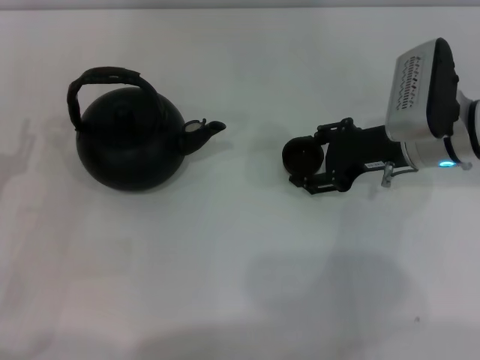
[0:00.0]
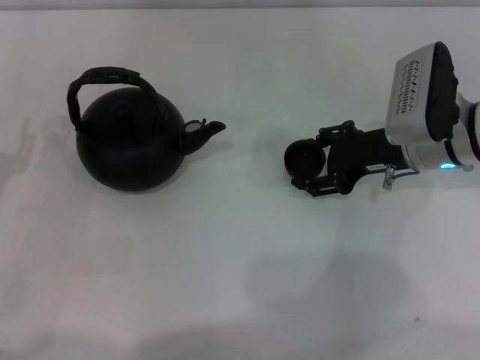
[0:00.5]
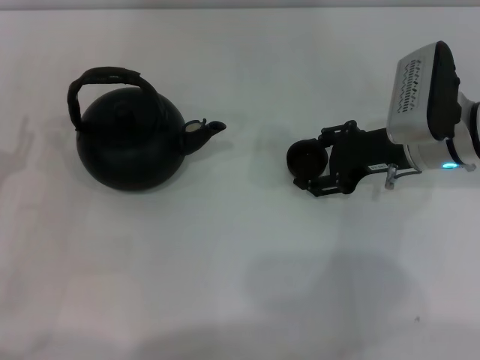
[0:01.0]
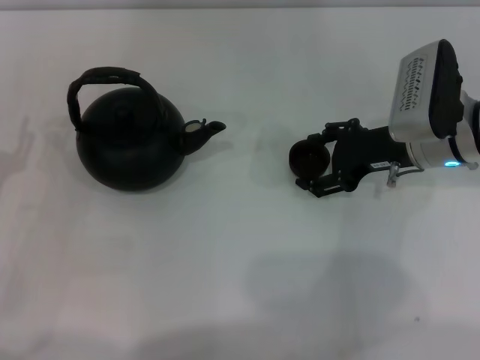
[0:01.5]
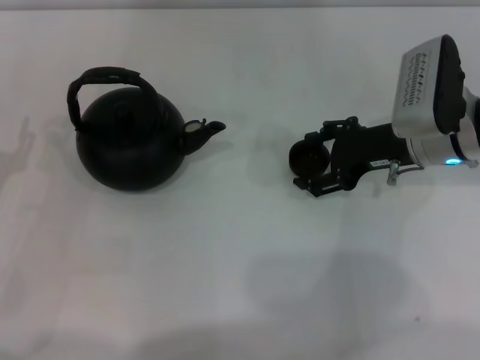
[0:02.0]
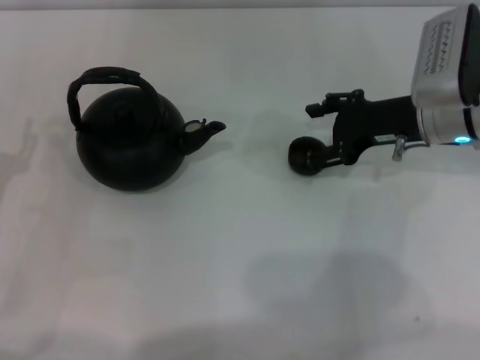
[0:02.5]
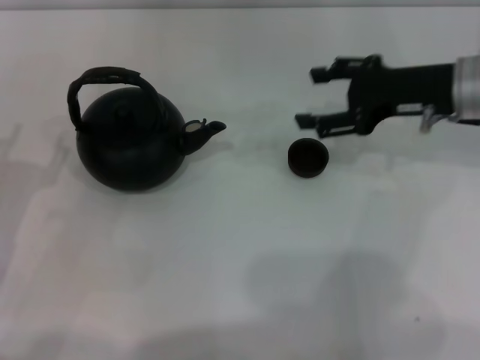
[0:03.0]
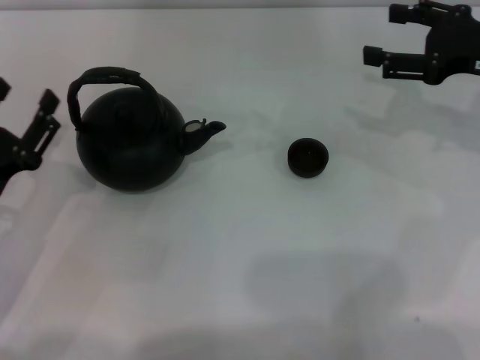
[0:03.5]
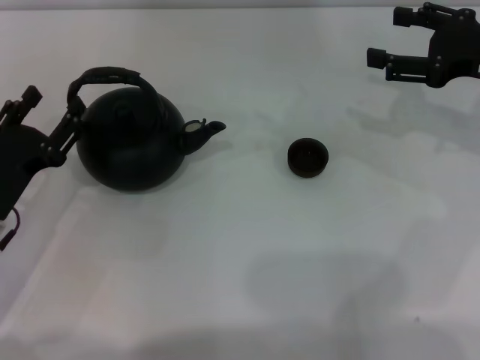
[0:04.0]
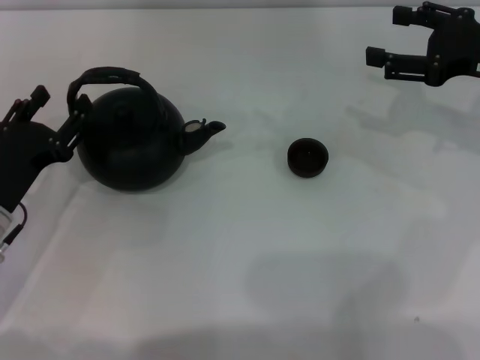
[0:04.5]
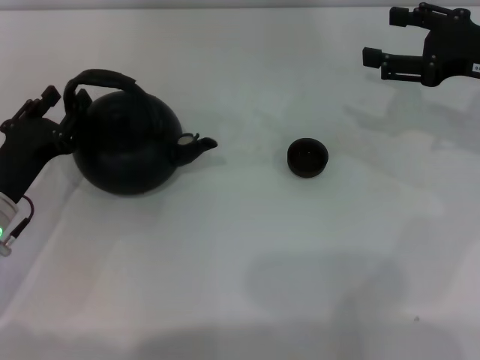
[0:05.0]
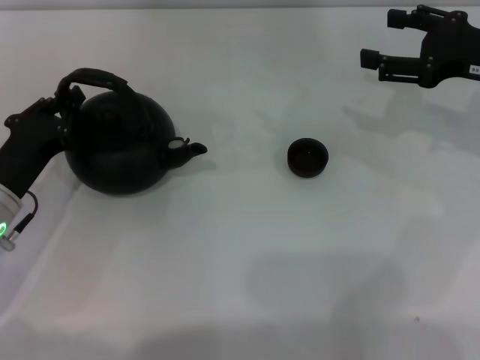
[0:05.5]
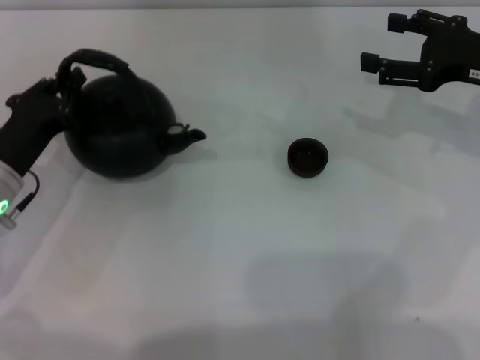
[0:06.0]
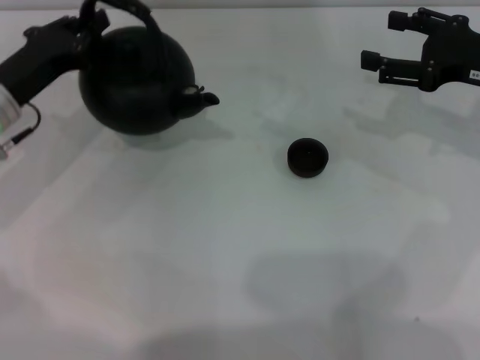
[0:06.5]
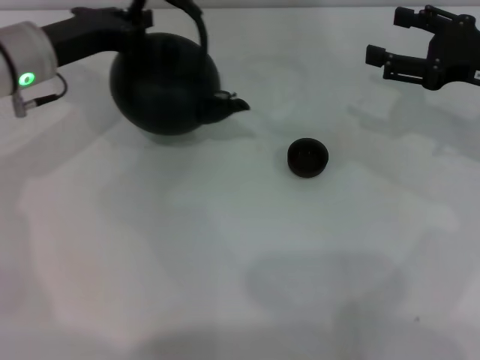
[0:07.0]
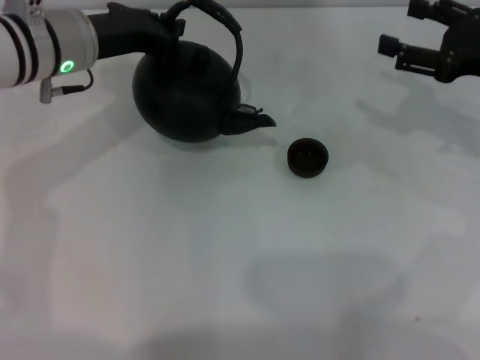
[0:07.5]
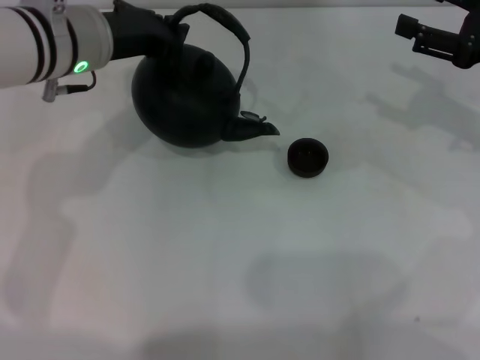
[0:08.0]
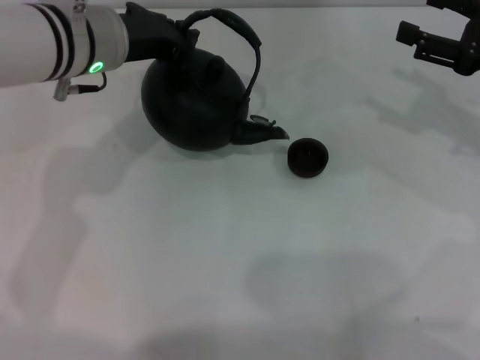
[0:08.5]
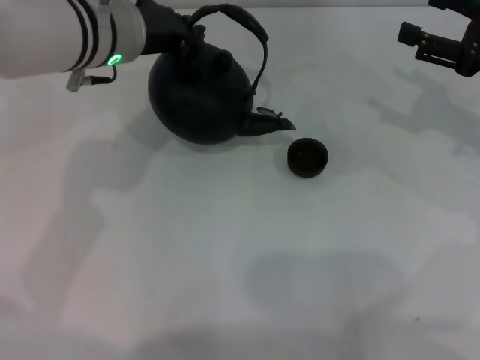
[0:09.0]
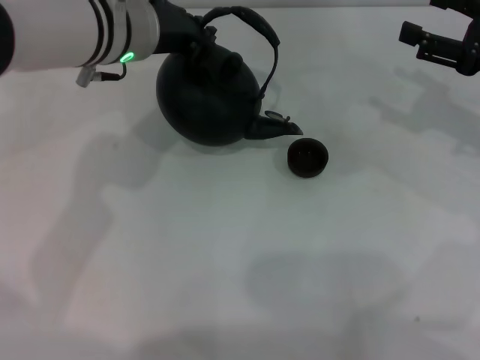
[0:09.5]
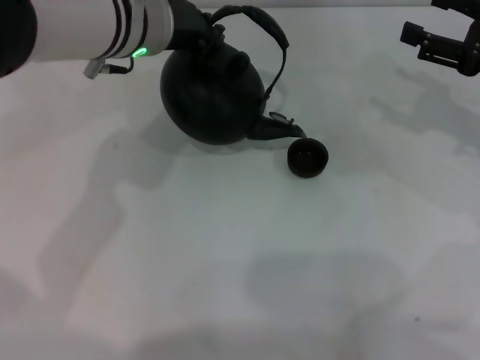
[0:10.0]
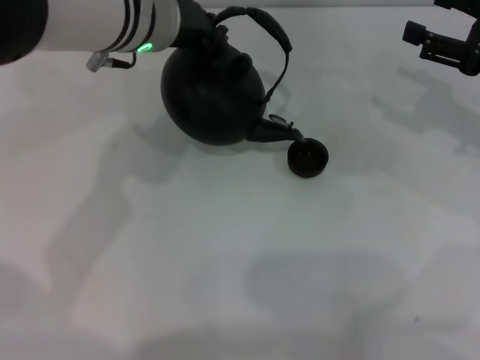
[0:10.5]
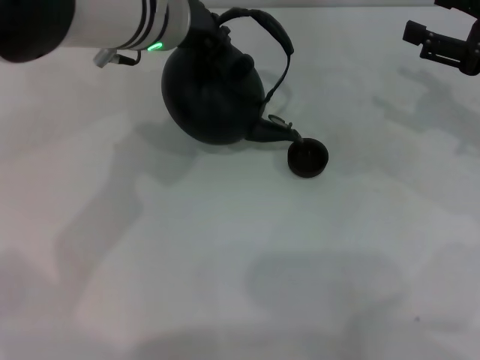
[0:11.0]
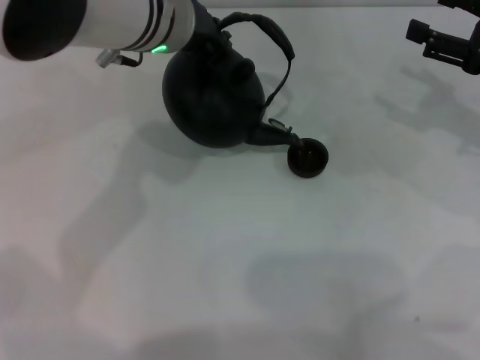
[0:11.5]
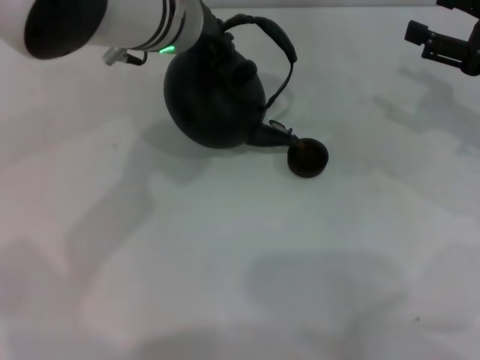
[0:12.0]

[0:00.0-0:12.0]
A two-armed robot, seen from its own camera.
Task of the whole recording: Grasp the handle of the teapot with one hand and pour tea into the teacup.
Step, 0:00.0 to 0:02.5: Place the teacup in the center of view with the right gripper.
Step, 0:03.5 to 0:08.5: Pick up the teapot with the left gripper.
0:00.0 to 0:02.0: The right gripper opens.
0:02.0 to 0:04.0: The right gripper is displaced to the right and upward by approximately 10 cm; the left gripper changes place by some 5 cm.
0:04.0 to 0:06.0: The left gripper closes its fingers.
0:06.0 to 0:08.0: The left gripper heads upward, to the right and forward, covering approximately 20 cm.
0:08.0 to 0:10.0: The left gripper goes about 5 cm to the right.
0:10.0 to 0:12.0: The grippers move only a little.

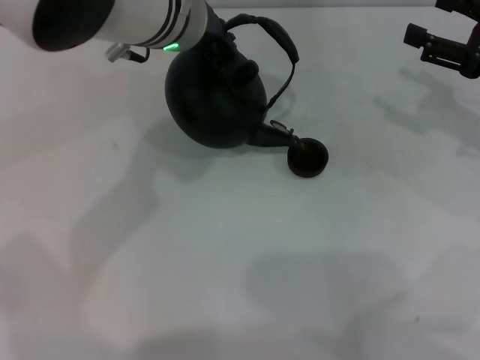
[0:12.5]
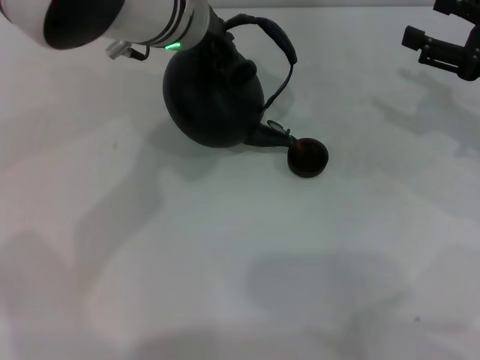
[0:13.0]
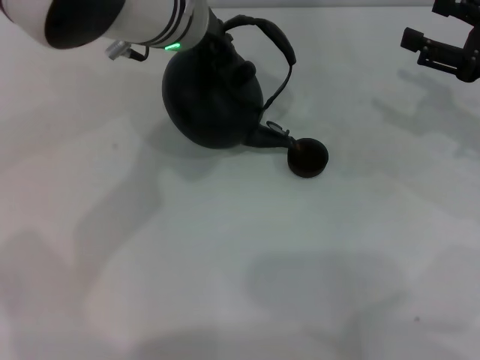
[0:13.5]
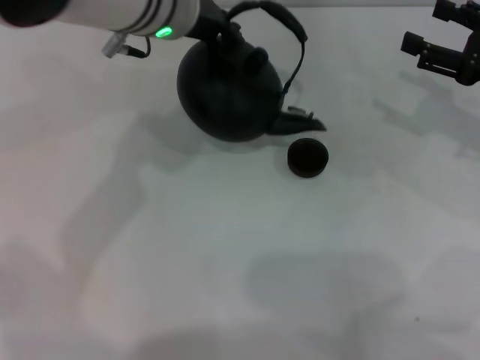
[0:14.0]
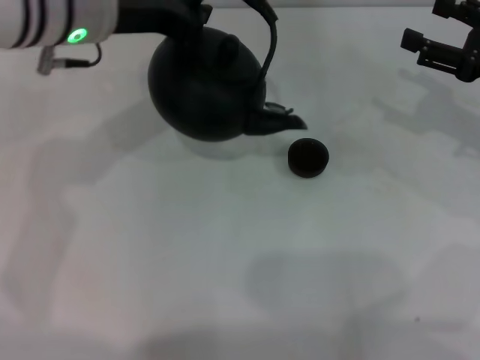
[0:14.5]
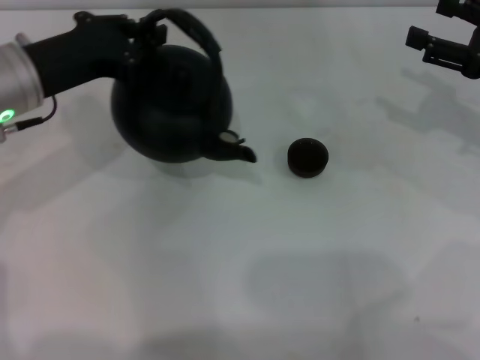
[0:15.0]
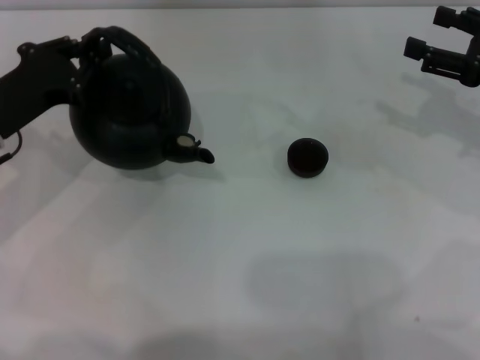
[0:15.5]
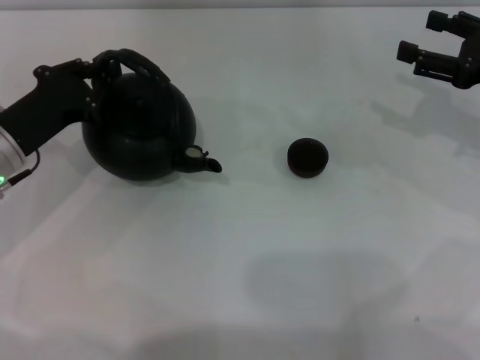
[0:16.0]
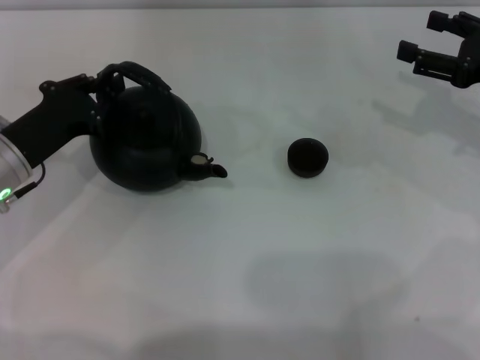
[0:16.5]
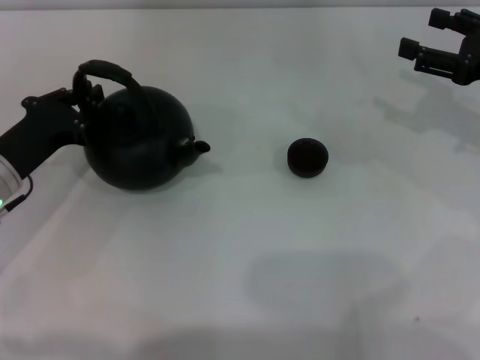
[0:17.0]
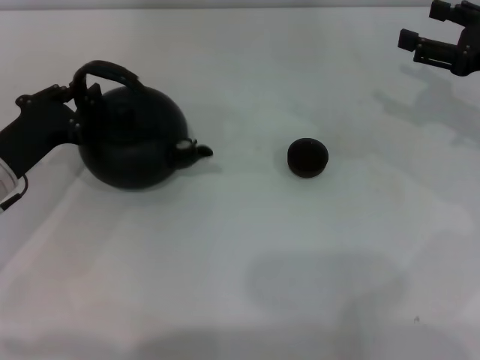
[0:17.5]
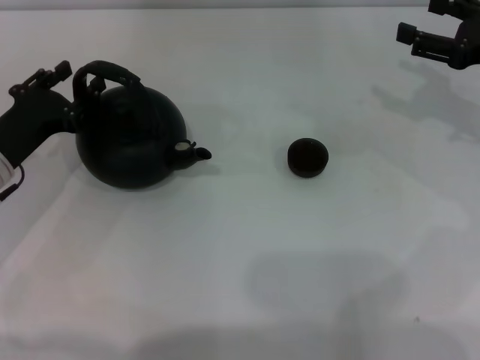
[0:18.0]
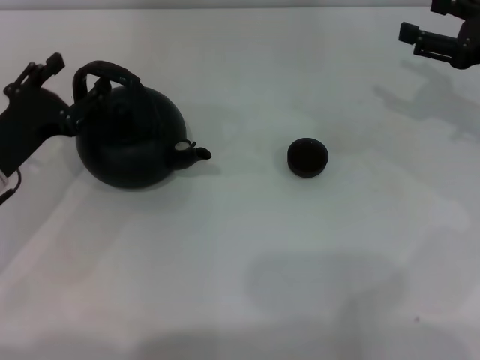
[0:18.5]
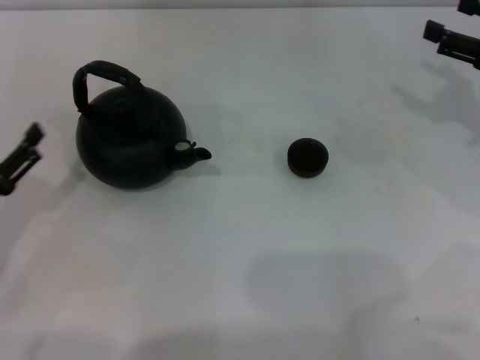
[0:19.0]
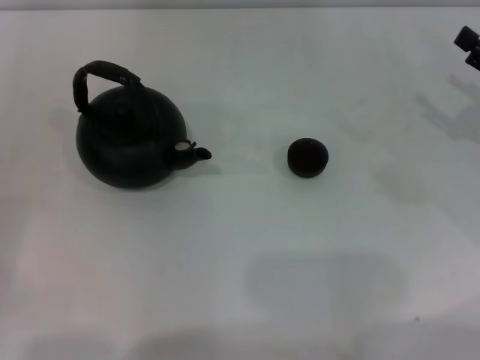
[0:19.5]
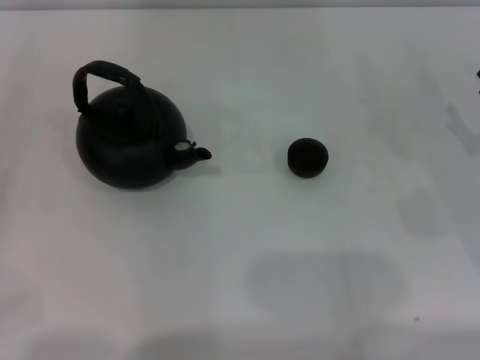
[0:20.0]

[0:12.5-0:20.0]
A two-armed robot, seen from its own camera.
Task of the whole recording: Grasp the handle of the teapot with one hand and pour tea into the teacup.
Step, 0:14.5 to 0:18.5: Put down the teapot with the left gripper.
0:12.5 to 0:14.5: The left gripper heads to the left, covering some 10 cm.
0:14.5 to 0:16.5: The left gripper travels downward, to the left and backward by approximately 20 cm.
0:16.5 to 0:18.0: The left gripper opens.
0:18.0 to 0:20.0: The right gripper moves backward and downward, about 15 cm. Meanwhile the left gripper moves backward and to the left, roughly 20 cm, and opens.

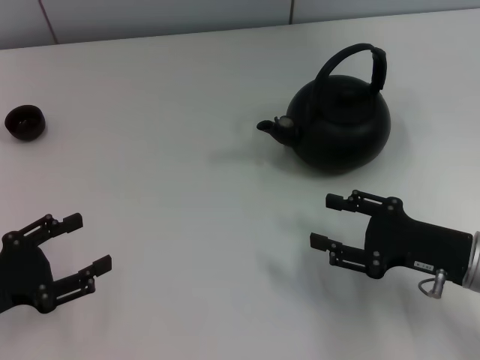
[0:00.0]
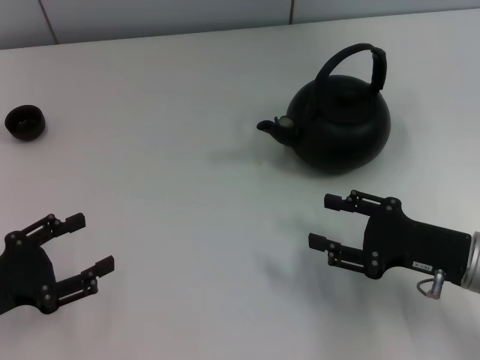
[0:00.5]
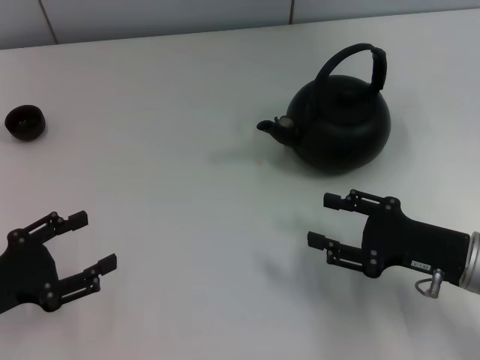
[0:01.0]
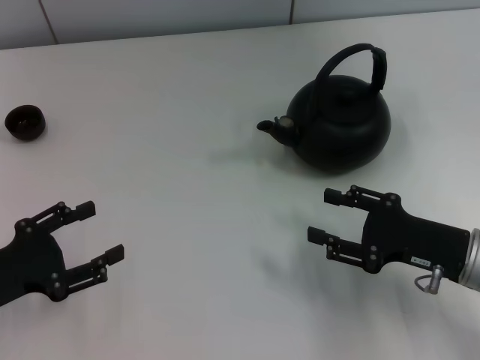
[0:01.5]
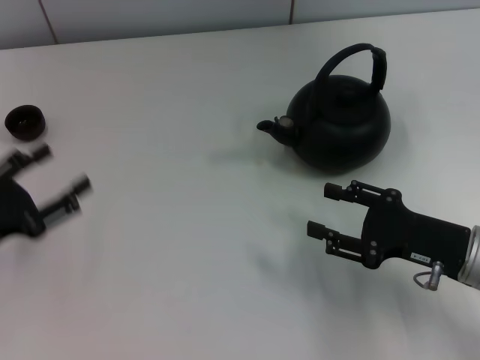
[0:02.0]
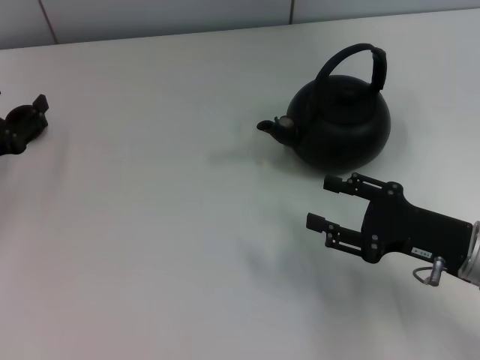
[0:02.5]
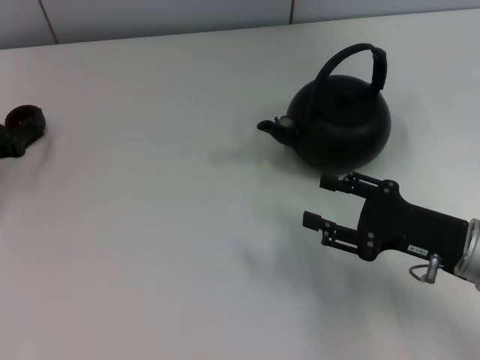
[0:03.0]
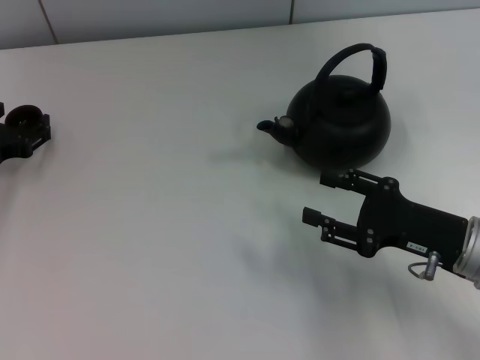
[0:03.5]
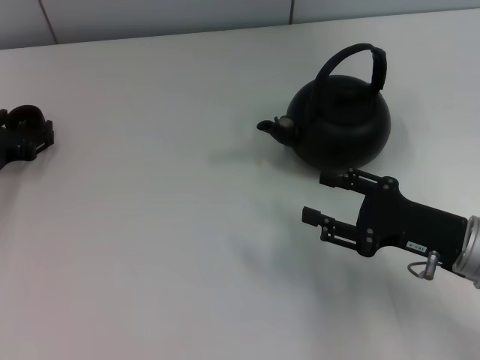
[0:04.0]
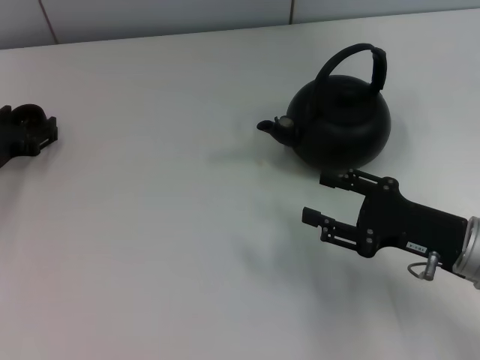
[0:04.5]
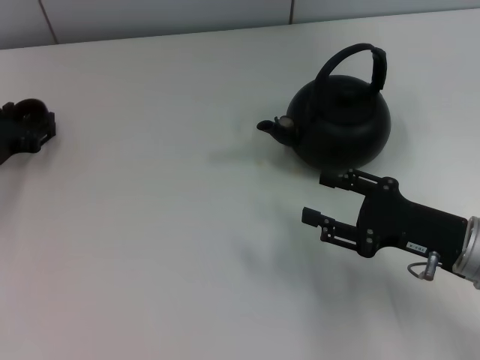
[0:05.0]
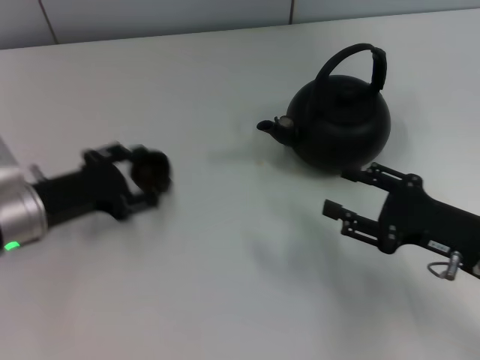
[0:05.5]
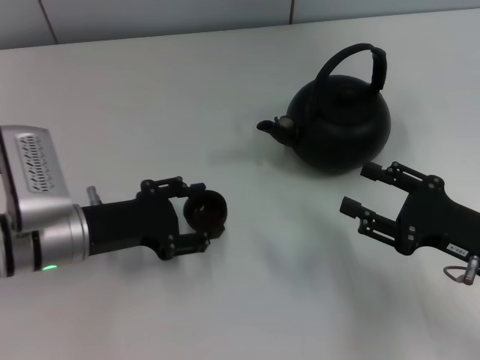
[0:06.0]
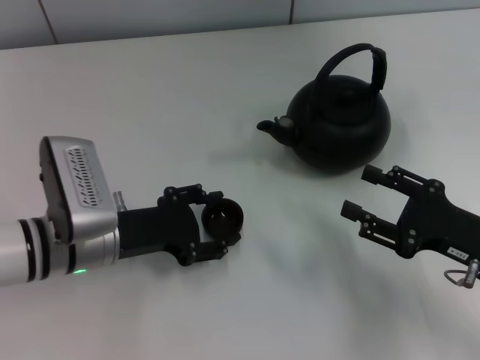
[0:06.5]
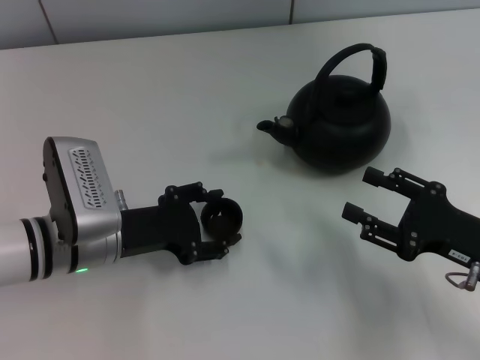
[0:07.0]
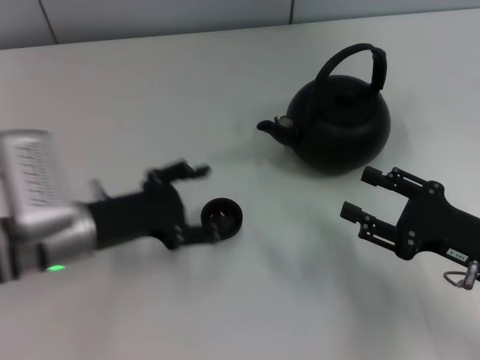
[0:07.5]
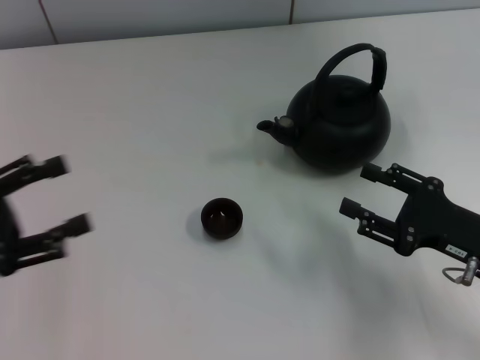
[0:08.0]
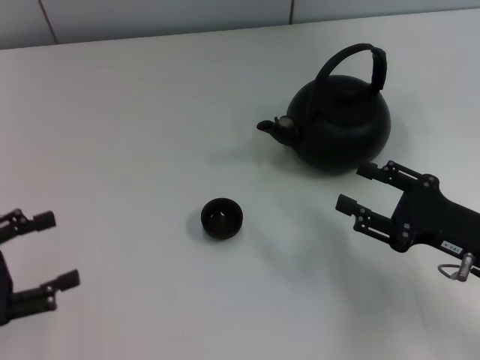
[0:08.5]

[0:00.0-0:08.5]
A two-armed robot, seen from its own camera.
Task of the whole recording: Grasp the handle of the teapot with one hand and pour tea into the teacup.
Step, 0:00.0 to 0:05.0: Pick up the teacup with the left gripper.
Step, 0:05.5 to 0:07.0: Place the teacup in the center of view with the left gripper.
0:00.0 to 0:02.0: The grippers stay close to where they were, moving slightly.
0:02.0 to 0:04.0: The left gripper moves forward, roughly 10 cm.
0:04.0 to 0:06.5: The left gripper goes about 15 cm to the right and backward, and closes its fingers.
0:06.5 to 0:08.5: The left gripper moves to the left and backward, about 20 cm, and opens.
